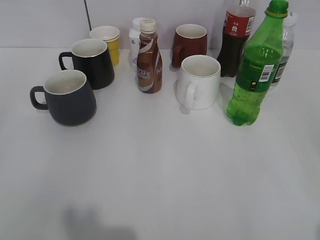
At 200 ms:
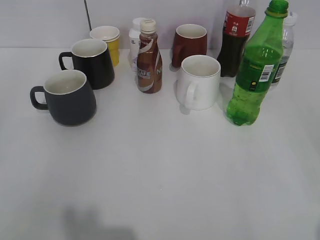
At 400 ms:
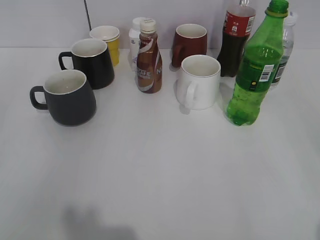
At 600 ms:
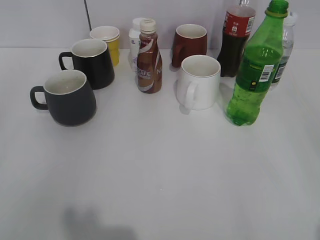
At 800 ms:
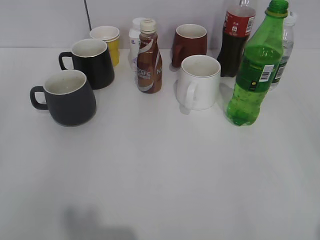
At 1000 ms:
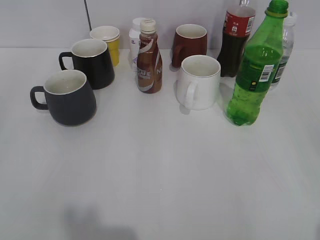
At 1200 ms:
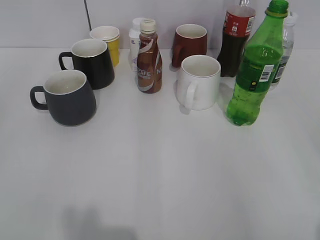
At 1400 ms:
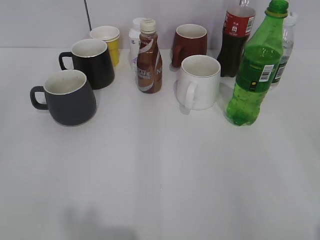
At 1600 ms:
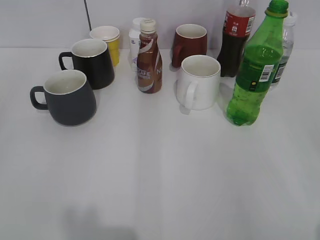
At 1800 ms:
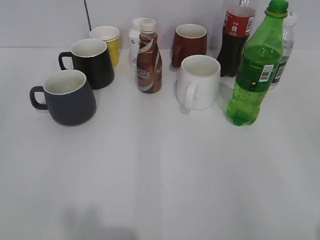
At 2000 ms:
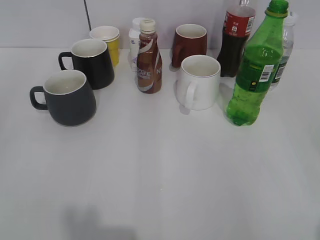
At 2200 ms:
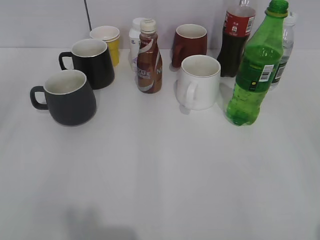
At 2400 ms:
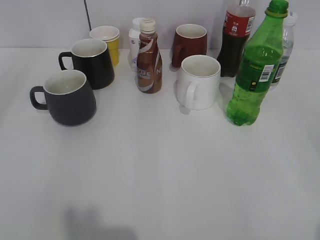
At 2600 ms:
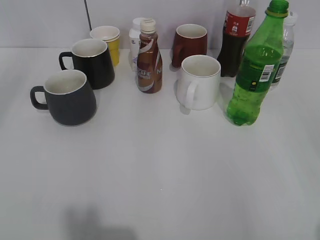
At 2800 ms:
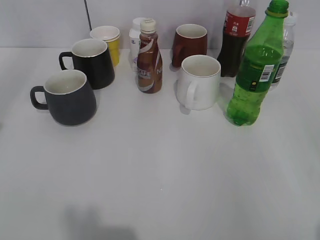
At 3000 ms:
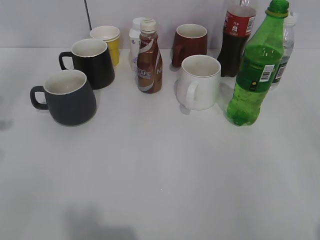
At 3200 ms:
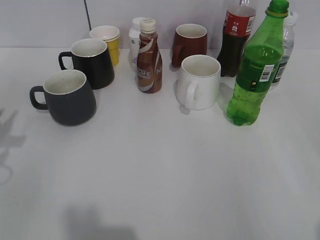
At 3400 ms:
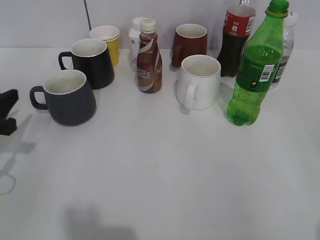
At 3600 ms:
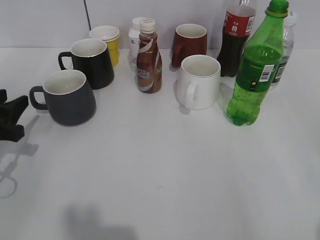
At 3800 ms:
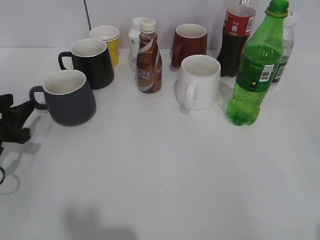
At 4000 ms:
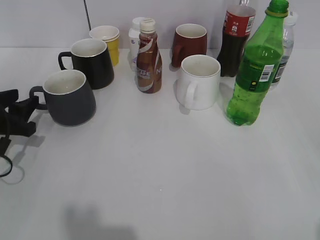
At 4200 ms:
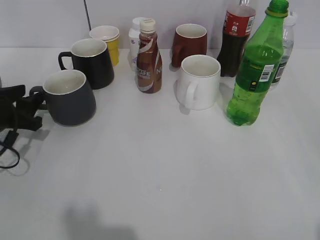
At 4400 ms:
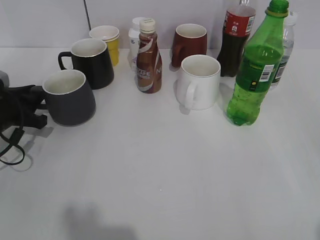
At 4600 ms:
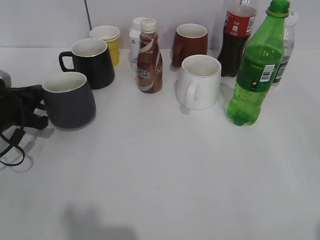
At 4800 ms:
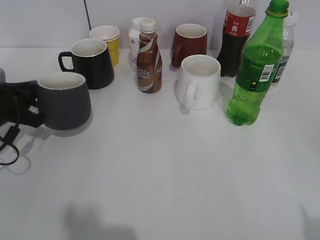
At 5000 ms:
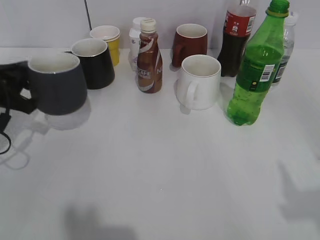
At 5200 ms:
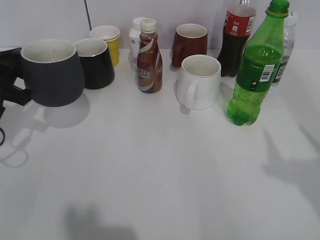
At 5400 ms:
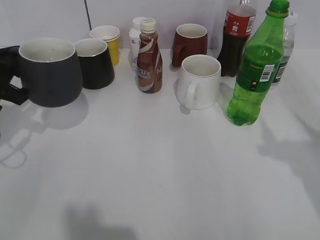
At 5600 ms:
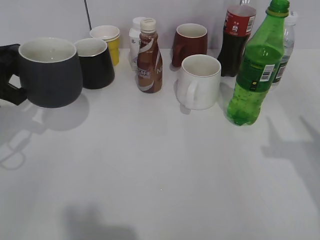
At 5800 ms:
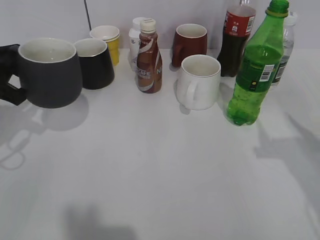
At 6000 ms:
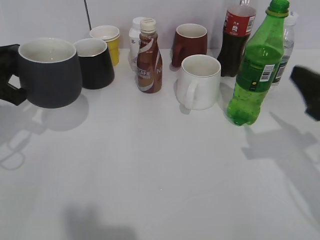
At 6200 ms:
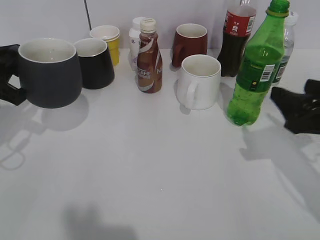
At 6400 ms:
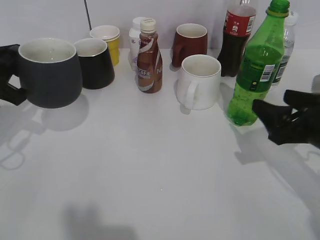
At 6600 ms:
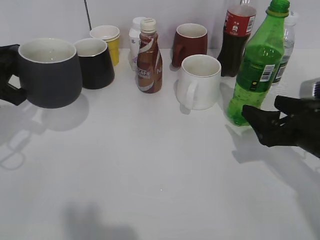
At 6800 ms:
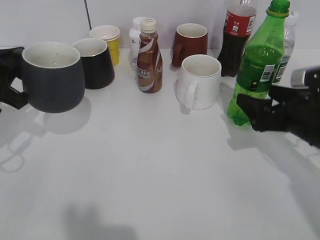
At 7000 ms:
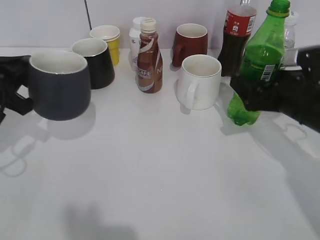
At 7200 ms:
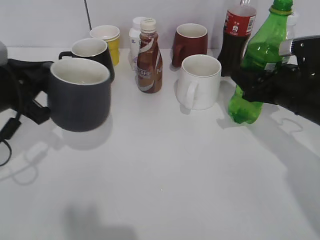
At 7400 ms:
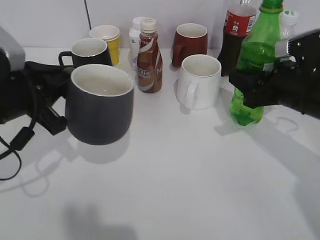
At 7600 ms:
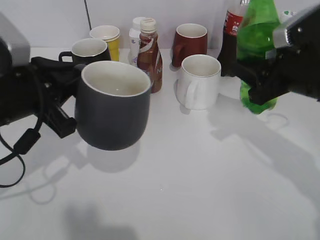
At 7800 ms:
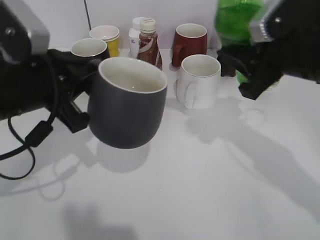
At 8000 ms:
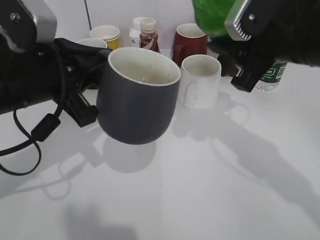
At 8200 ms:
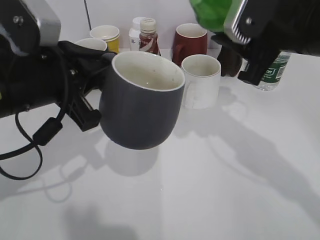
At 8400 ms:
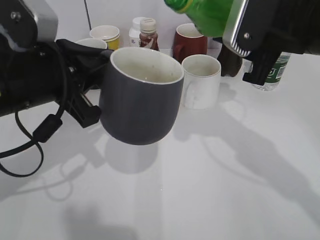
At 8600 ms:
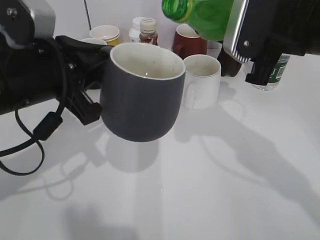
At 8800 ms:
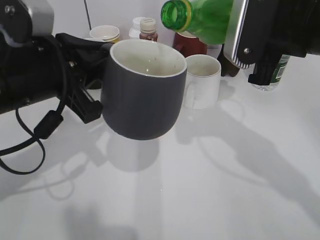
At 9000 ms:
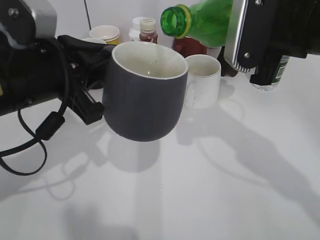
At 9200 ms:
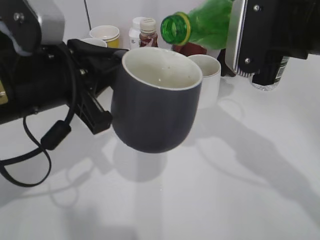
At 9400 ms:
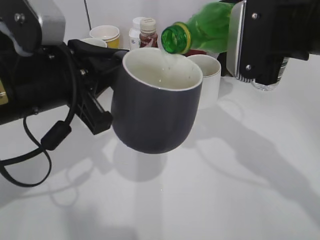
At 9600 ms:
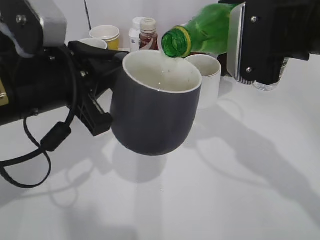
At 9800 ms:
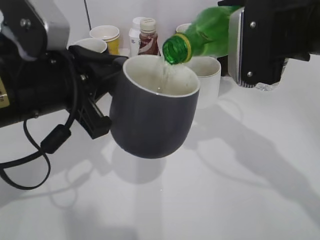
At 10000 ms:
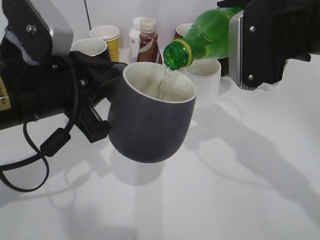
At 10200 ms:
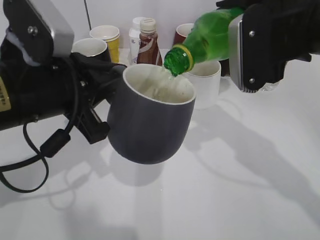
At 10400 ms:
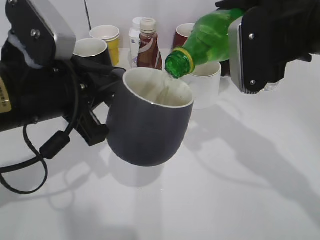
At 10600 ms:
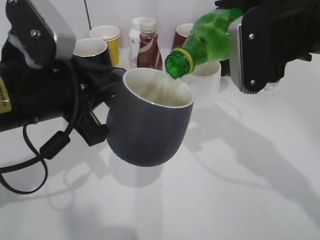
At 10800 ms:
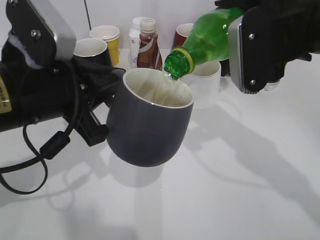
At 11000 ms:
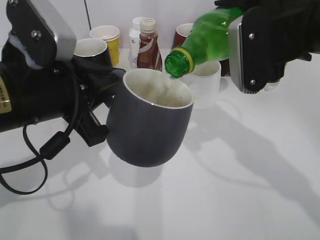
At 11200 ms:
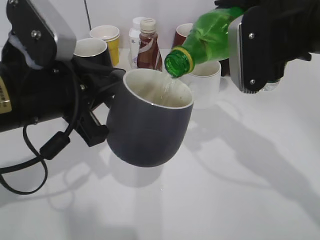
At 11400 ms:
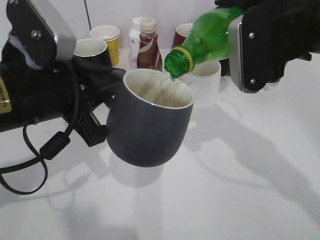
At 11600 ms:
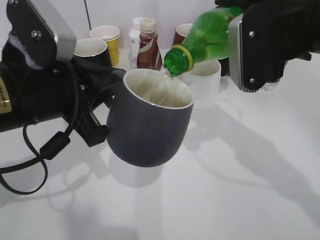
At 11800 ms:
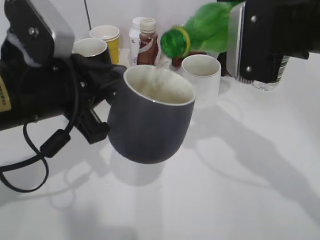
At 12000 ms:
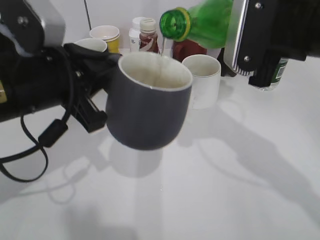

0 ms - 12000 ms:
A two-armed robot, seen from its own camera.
Step, 2000 ms - 4400 ms: Grasp the grey cup with left gripper.
Step, 4600 ms - 5800 ms: Lift the grey cup with left gripper.
Step, 6000 ms - 7200 ms: Grasp the bottle with sprite with right gripper.
3000 ms - 4400 ms: The left gripper goes approximately 15 cm downward and forward, and opens and closes again.
4400 ms - 6000 ms: The right gripper heads forward, covering approximately 20 cm. The left gripper heads upward, covering some 10 cm.
6000 ms - 7600 ms: The right gripper goes roughly 10 cm forward and to the left, and closes. Meanwhile the left gripper shifts approximately 10 cm to the right and backward.
7600 ms - 9000 ms: The right gripper travels upward by roughly 5 cm.

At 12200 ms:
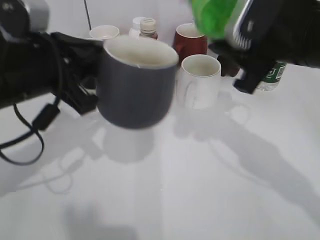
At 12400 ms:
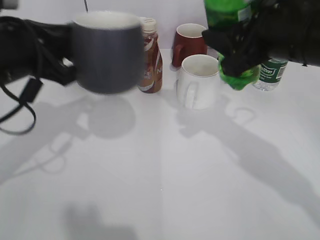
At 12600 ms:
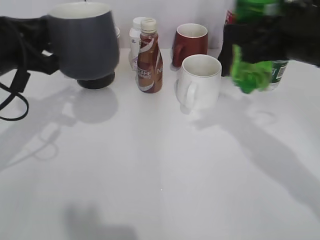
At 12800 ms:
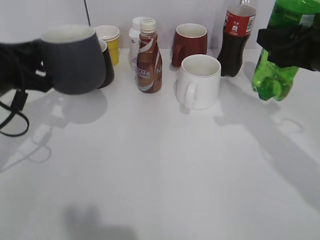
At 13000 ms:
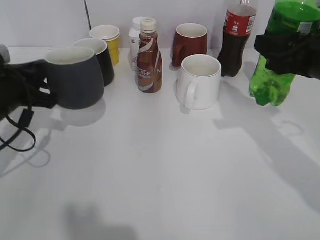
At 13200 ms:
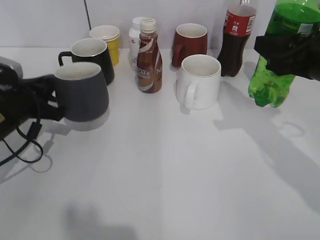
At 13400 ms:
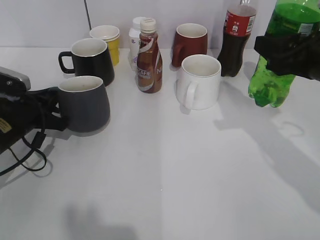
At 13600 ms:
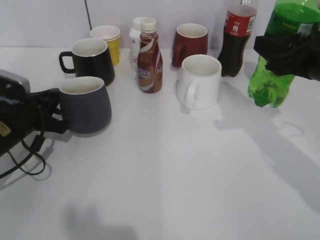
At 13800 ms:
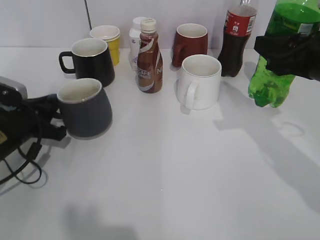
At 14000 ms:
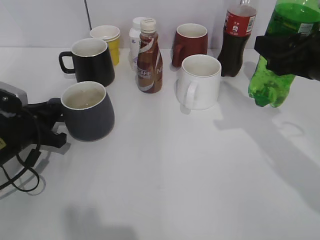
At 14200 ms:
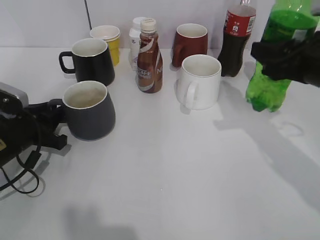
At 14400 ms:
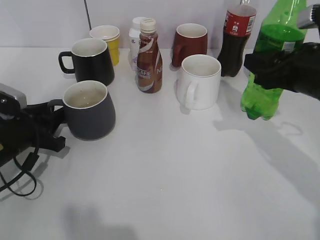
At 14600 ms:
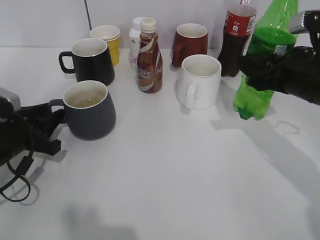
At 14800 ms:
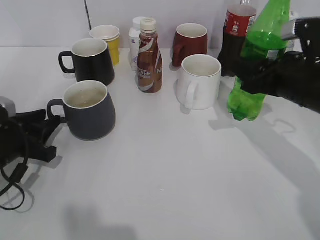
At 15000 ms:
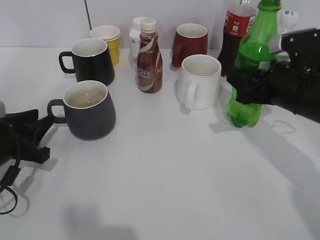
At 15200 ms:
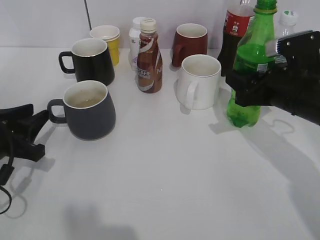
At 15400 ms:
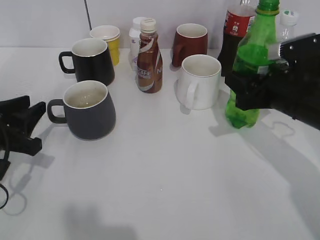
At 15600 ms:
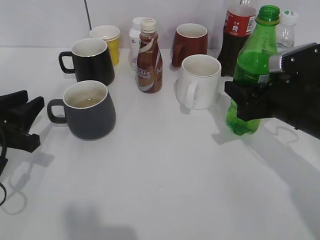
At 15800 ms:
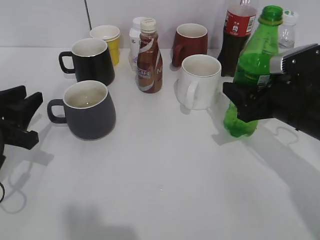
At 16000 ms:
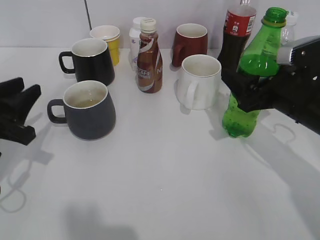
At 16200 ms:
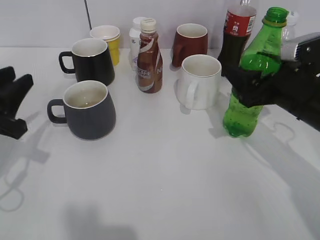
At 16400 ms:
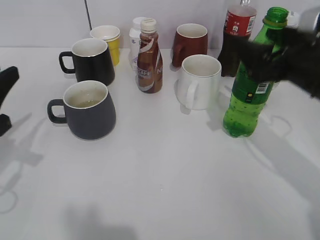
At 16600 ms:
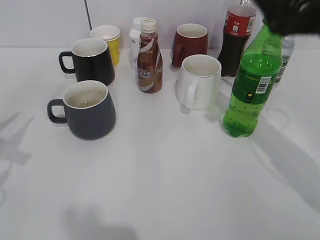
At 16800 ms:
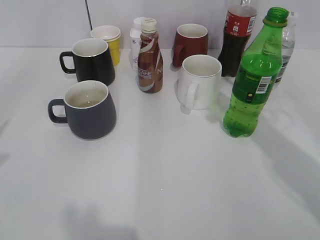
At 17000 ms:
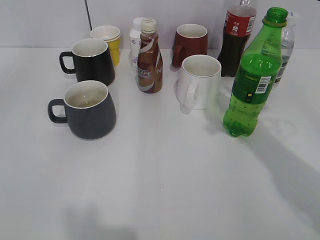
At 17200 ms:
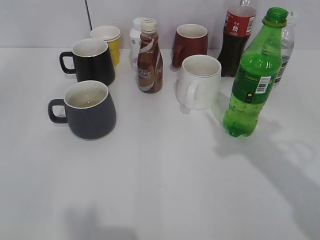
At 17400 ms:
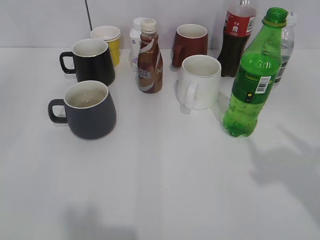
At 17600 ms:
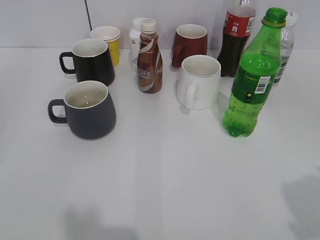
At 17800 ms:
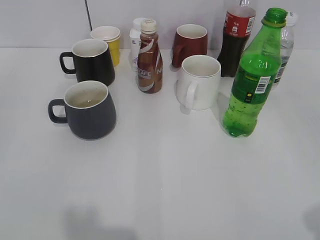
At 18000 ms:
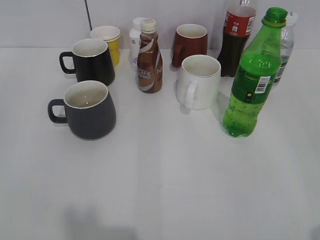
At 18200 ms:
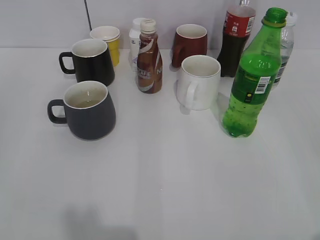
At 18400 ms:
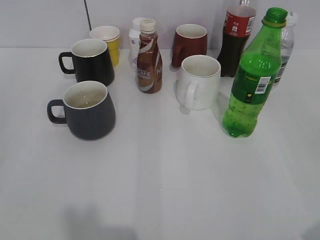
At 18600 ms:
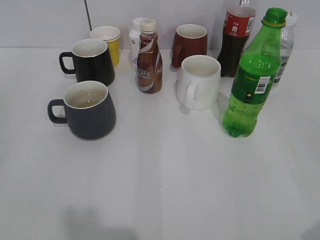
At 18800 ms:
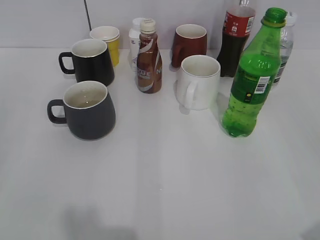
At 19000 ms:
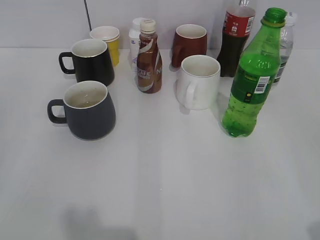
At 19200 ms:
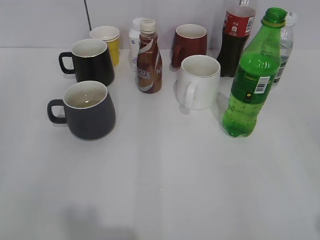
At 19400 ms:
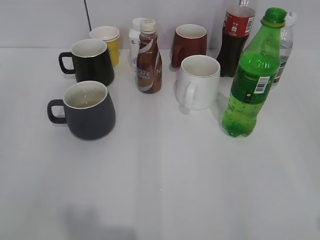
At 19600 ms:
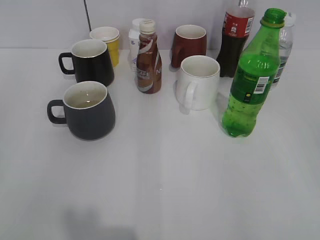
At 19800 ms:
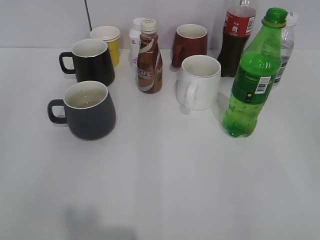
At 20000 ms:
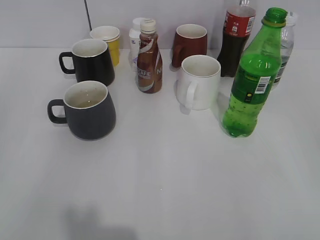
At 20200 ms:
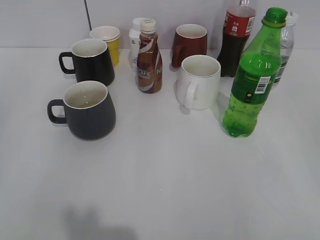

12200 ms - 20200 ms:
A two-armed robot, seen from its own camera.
Step, 12200 ms - 14600 ms: Place the grey cup on the table with left gripper.
Step, 14800 ms - 16400 ms: Place the sprite bottle on the table with right gripper.
12200 ms - 13800 ms: The right gripper travels to the right by approximately 5 cm; the left gripper shifts roughly 20 cm downward and to the left.
13800 ms - 15400 ms: The left gripper heads backward, covering roughly 5 cm, and opens its fingers. The right gripper moves downward, approximately 10 cm.
15400 ms - 17000 ms: The two grippers go about 25 cm upward and backward. The right gripper opens.
17000 ms - 18600 ms: The right gripper shifts some 20 cm backward, to the right and downward.
